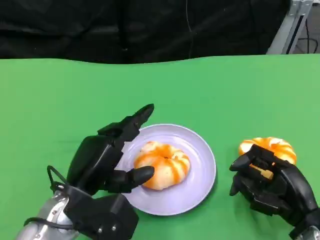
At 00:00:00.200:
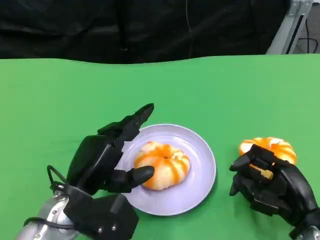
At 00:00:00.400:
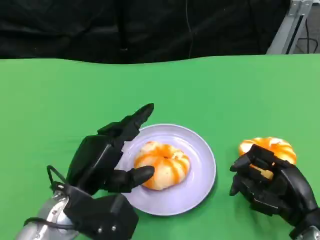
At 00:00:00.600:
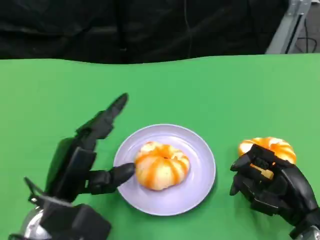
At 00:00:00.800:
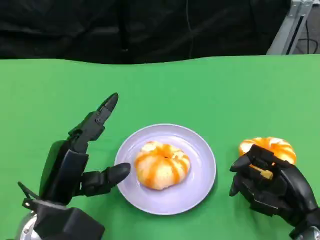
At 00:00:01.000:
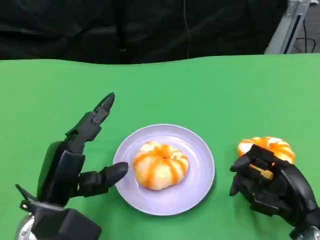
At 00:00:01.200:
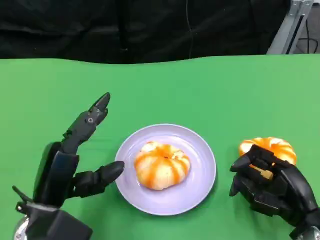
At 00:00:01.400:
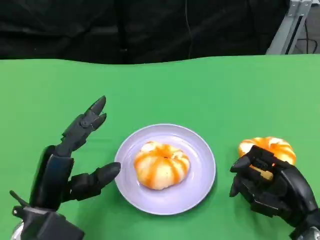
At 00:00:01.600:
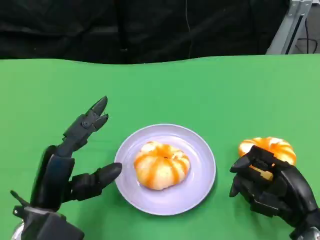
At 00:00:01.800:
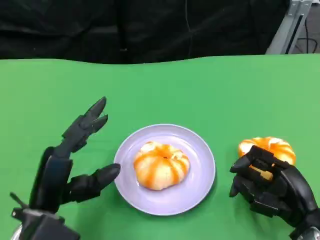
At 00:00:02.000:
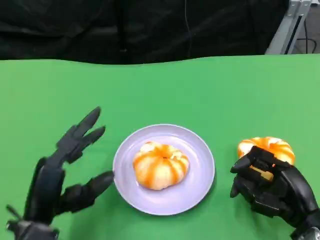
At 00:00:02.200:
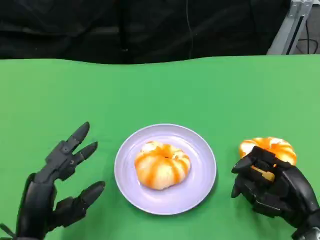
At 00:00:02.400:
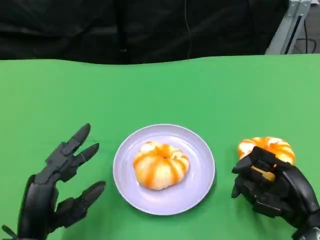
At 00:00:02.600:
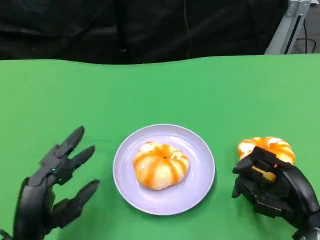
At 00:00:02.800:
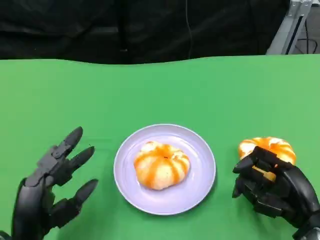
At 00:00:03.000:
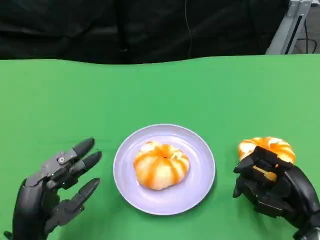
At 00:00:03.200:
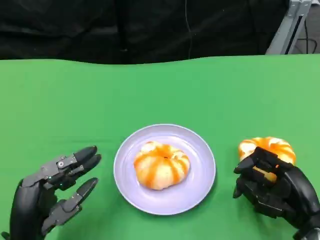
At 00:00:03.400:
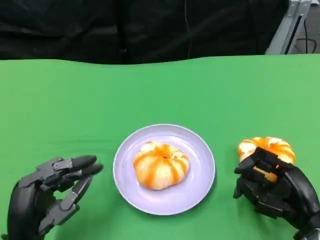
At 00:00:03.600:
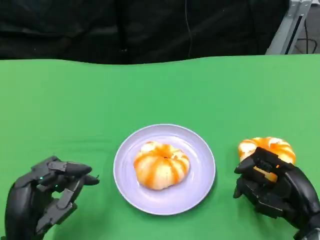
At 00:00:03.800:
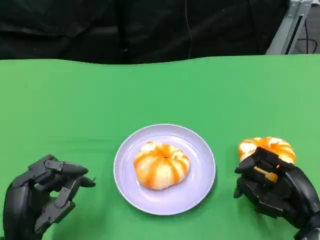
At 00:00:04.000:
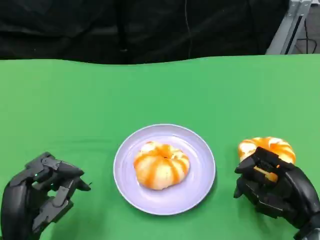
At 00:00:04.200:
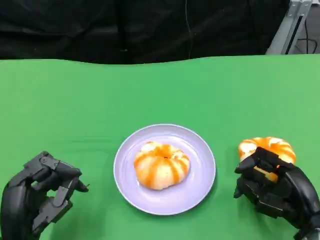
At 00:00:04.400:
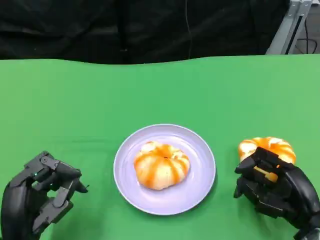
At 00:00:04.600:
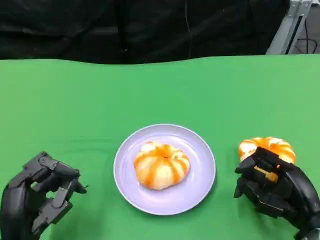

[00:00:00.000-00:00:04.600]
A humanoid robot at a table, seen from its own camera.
Task of the whole recording: Grasp the bread from the table and place it into the plate.
00:00:01.600 to 00:00:03.000: The left hand changes place by some 5 cm.
00:00:03.000 to 00:00:04.600: The hands stay close to where they were, moving slightly.

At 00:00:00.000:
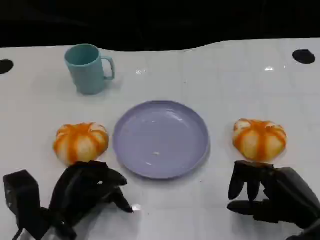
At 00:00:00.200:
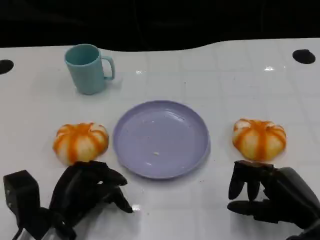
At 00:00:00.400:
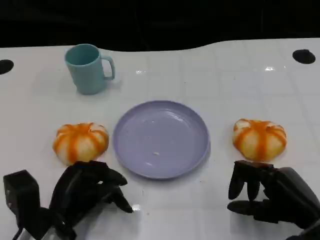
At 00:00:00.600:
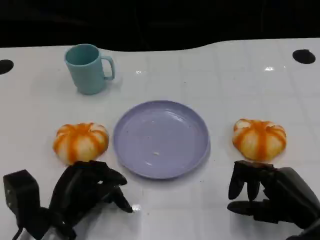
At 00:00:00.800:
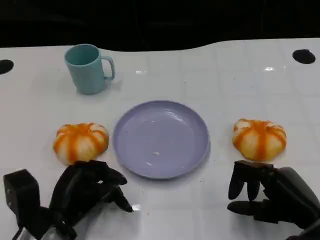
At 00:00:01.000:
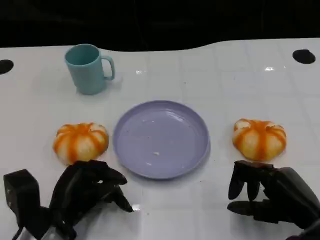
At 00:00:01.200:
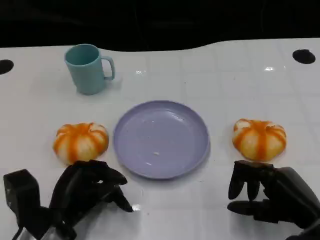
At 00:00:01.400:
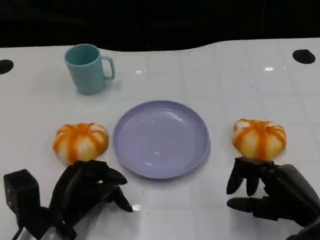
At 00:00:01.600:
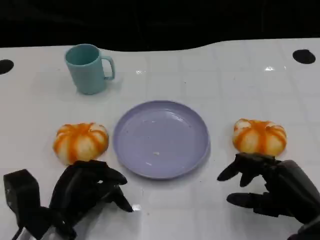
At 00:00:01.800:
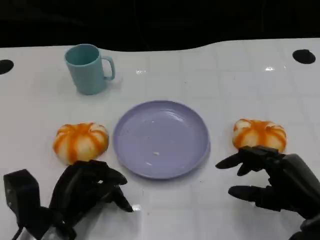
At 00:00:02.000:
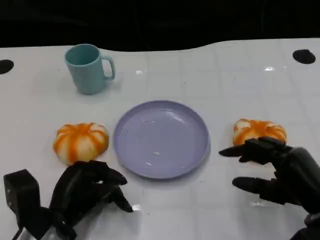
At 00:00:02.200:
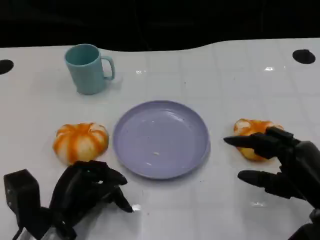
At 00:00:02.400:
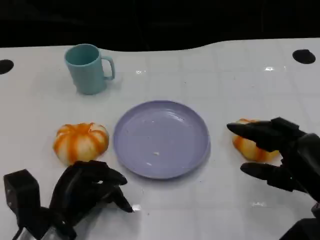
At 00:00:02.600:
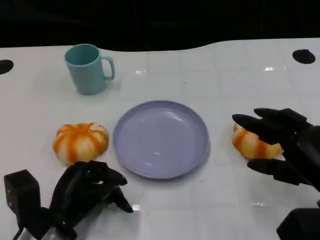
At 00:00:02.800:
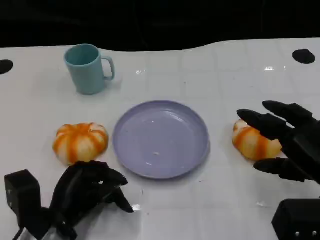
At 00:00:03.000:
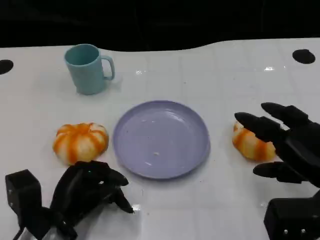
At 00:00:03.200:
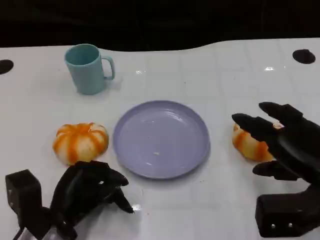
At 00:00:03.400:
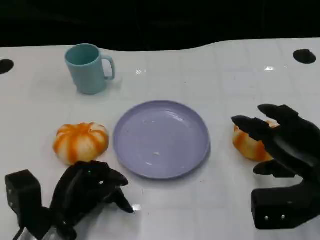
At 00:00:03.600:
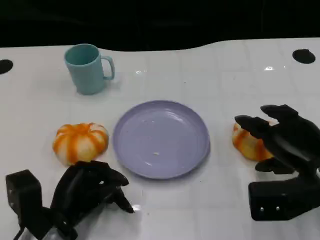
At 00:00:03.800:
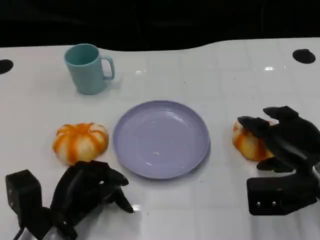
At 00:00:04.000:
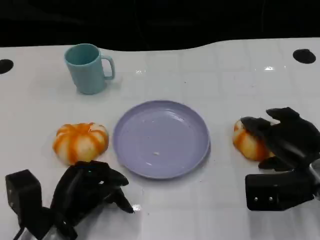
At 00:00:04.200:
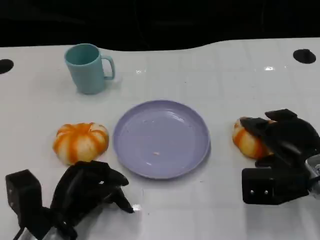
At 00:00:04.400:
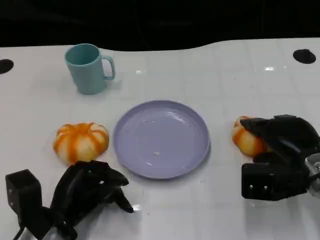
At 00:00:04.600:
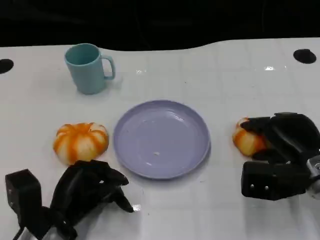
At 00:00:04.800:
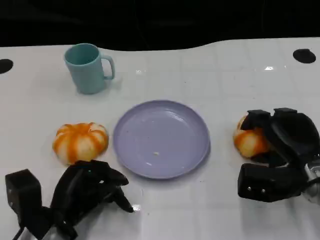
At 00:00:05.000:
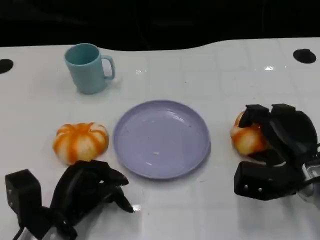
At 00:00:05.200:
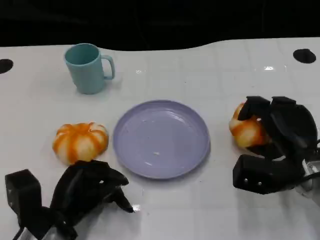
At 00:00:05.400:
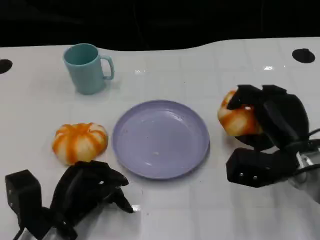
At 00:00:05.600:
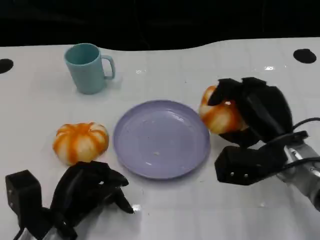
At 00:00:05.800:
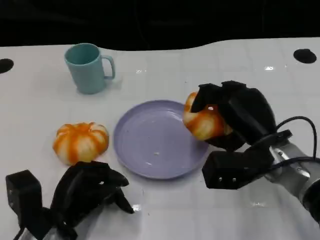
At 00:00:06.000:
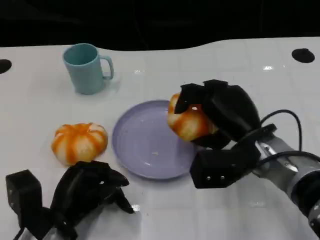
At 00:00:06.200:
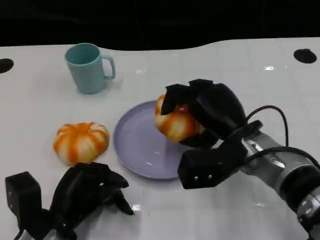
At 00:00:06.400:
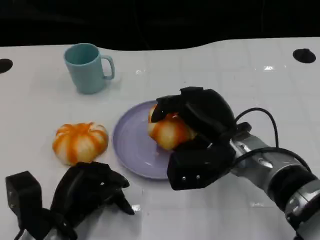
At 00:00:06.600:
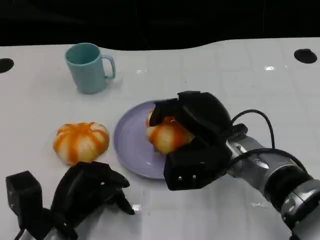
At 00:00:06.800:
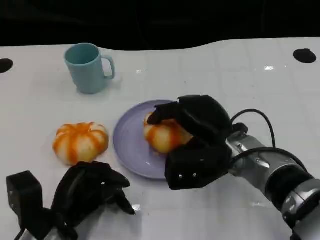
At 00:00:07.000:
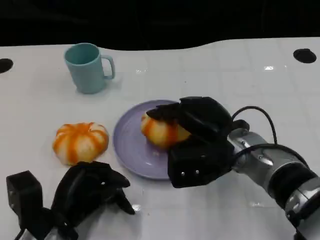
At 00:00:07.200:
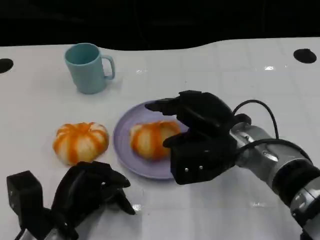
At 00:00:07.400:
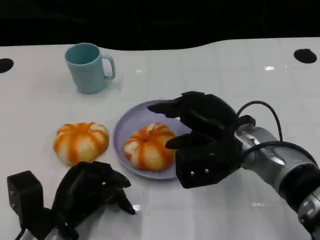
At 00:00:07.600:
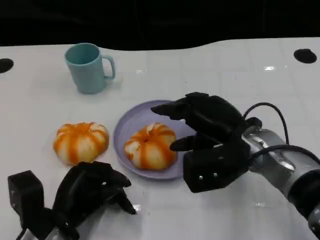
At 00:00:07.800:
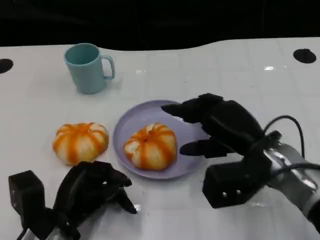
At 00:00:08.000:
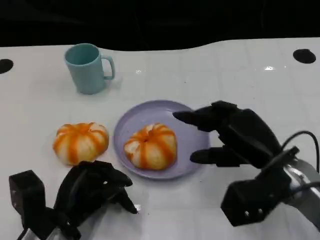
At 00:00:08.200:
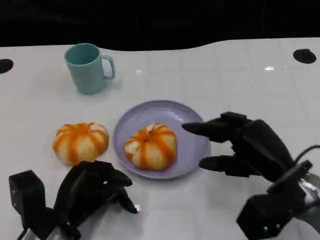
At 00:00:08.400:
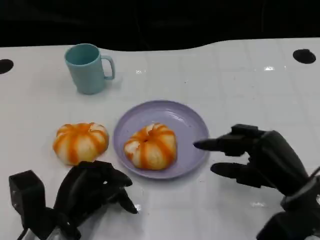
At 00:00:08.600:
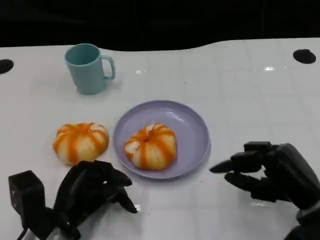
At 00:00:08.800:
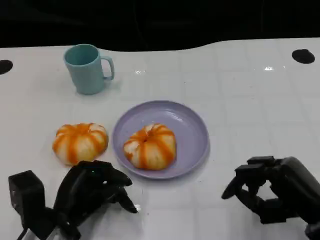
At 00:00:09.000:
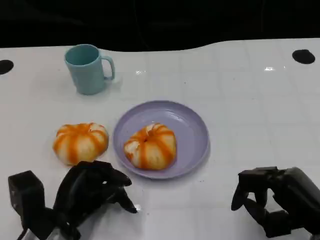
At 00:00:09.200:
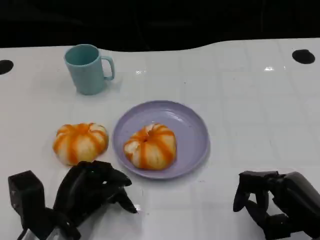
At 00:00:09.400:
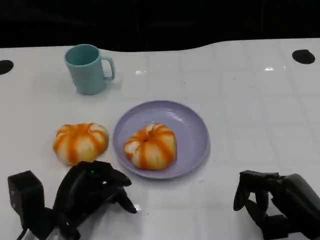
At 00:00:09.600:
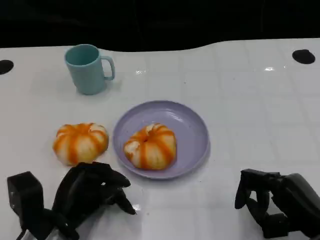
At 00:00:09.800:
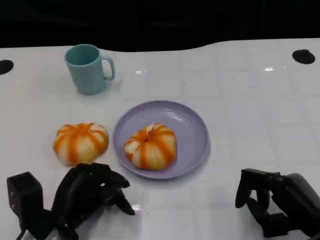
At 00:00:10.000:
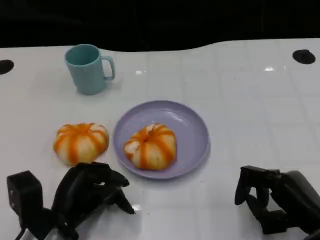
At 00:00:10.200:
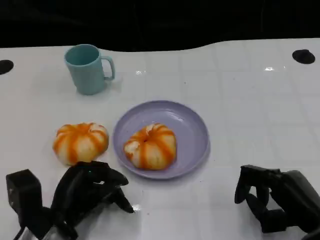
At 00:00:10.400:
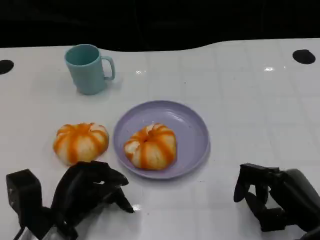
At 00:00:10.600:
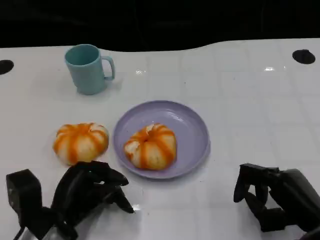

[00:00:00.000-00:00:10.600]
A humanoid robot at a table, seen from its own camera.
Task of the whole recording: Grasp the bread from the table and place it into the plate.
00:00:00.000 to 00:00:01.600: The two hands keep their place.
00:00:01.600 to 00:00:03.000: The right hand goes about 5 cm upward.
00:00:03.000 to 00:00:04.600: The right hand shifts some 10 cm forward and downward.
00:00:04.600 to 00:00:06.000: The right hand shifts some 10 cm to the left.
00:00:07.600 to 00:00:09.000: The right hand shifts roughly 15 cm backward, to the right and downward.
00:00:09.000 to 00:00:10.600: The hands stay close to where they were, moving slightly.

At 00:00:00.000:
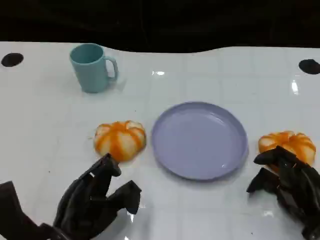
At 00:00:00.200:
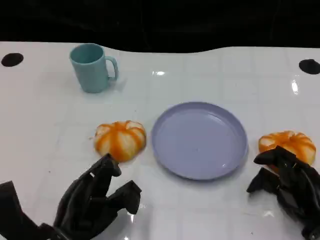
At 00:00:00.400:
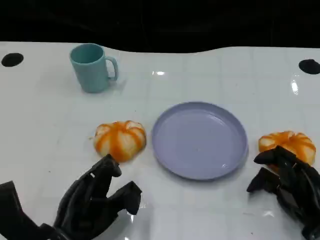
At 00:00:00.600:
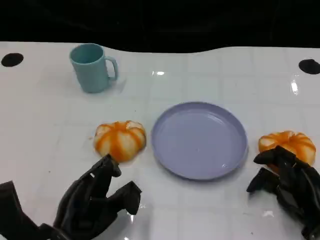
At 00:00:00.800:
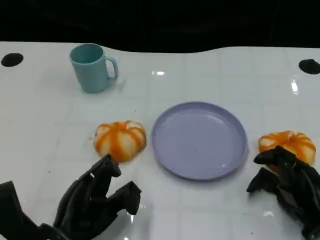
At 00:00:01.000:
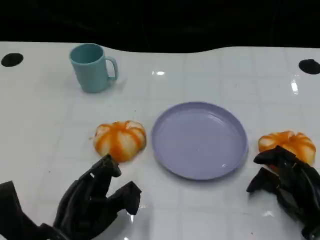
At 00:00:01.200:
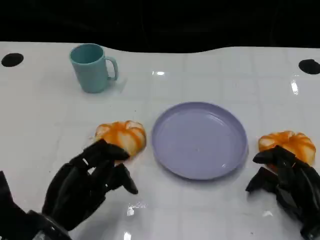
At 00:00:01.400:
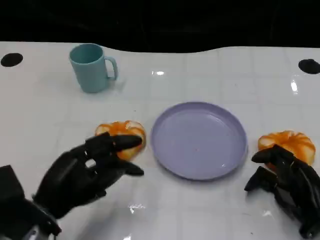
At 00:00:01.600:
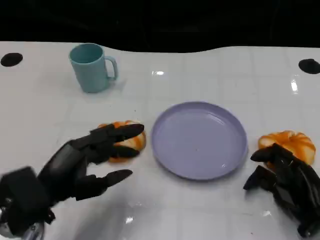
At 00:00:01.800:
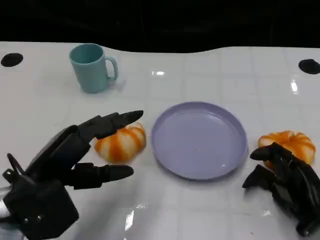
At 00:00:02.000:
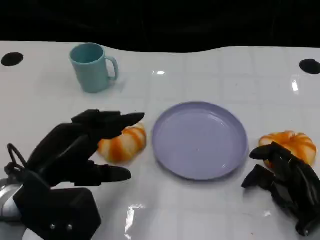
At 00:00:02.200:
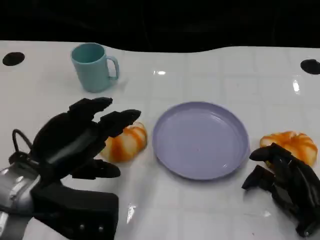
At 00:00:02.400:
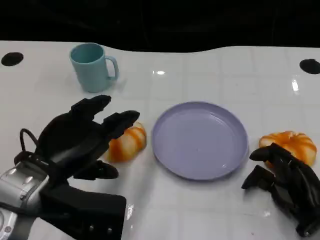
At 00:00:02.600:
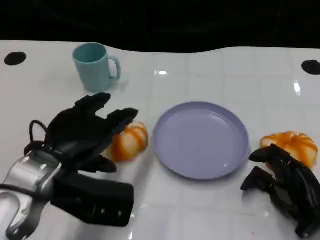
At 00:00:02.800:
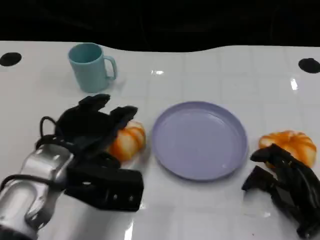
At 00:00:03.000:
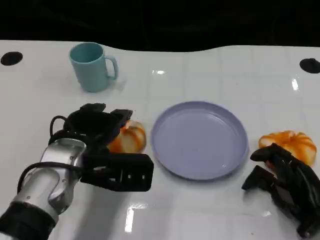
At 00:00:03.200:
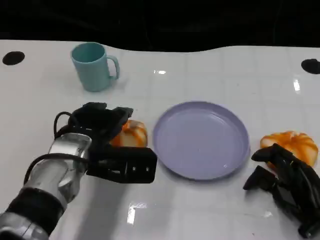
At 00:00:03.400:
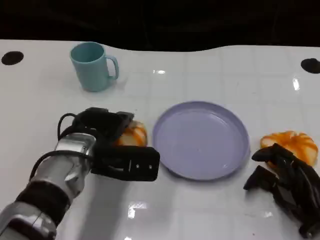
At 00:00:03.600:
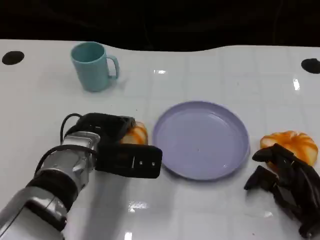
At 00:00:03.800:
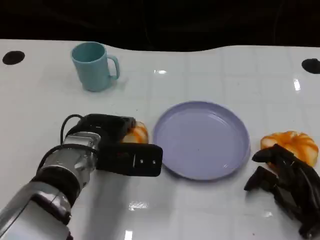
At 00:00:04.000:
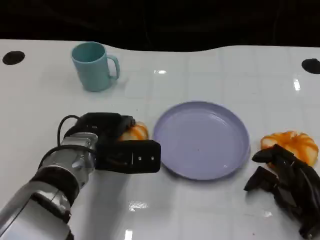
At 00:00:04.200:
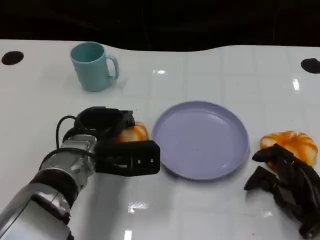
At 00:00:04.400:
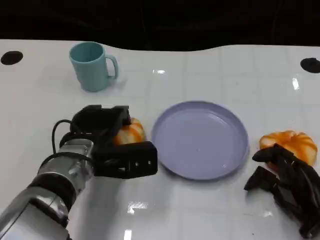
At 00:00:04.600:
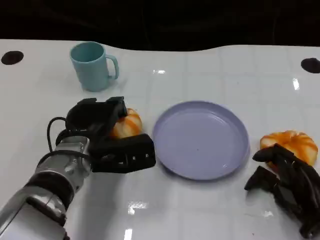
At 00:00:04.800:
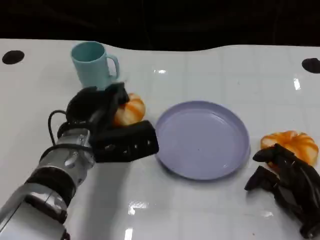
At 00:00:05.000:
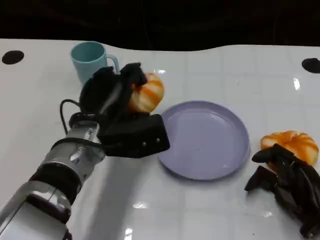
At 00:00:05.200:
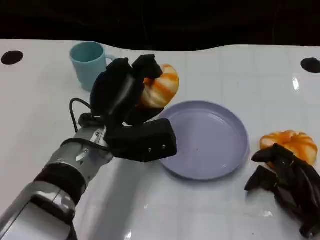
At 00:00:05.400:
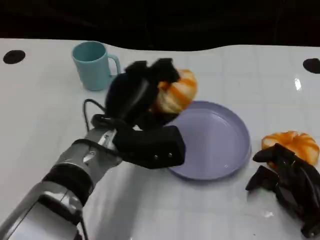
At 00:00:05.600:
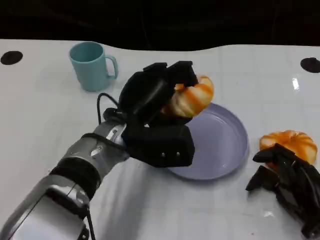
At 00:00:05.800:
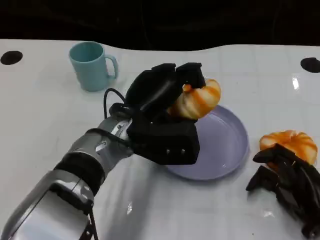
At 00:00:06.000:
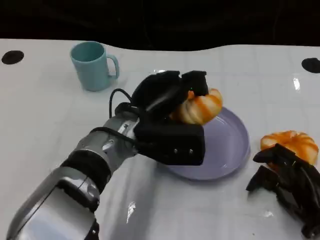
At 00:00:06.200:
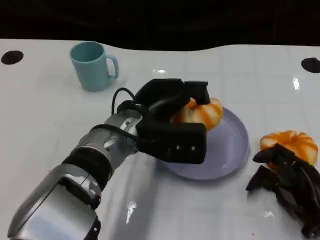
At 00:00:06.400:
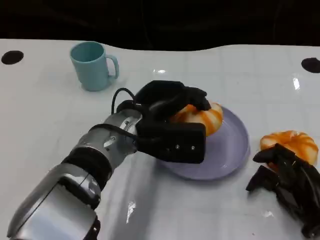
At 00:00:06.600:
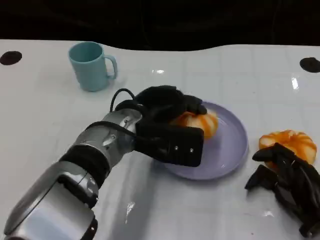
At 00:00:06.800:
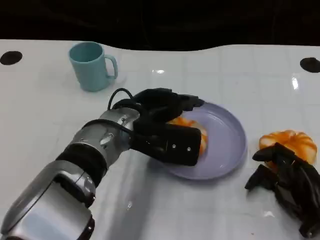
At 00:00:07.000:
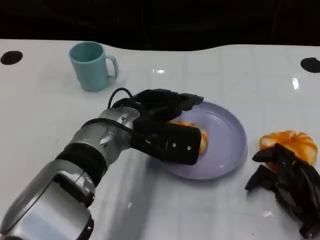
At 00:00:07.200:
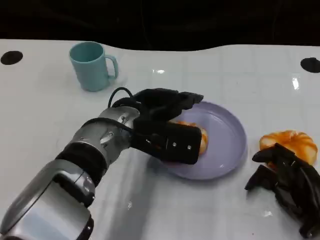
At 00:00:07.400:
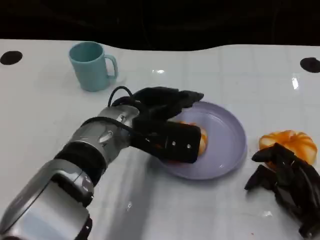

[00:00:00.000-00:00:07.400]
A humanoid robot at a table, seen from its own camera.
Task of the whole recording: Grasp the bread from the table and place it into the plate.
00:00:00.000 to 00:00:01.400: The left hand ends up approximately 5 cm from where it was.
00:00:01.400 to 00:00:03.000: The left hand shifts some 10 cm forward and to the right.
00:00:03.000 to 00:00:04.400: The hands stay close to where they were, moving slightly.
00:00:04.400 to 00:00:06.000: The left hand travels to the right and upward by roughly 10 cm.
